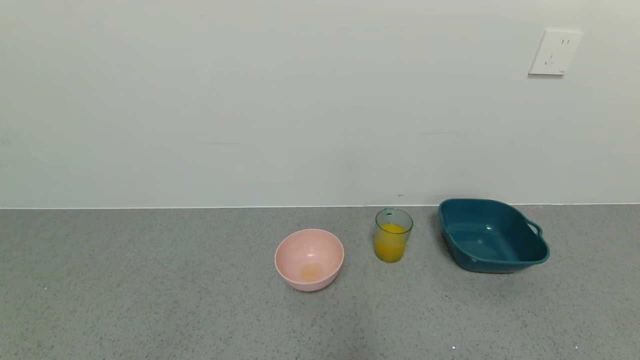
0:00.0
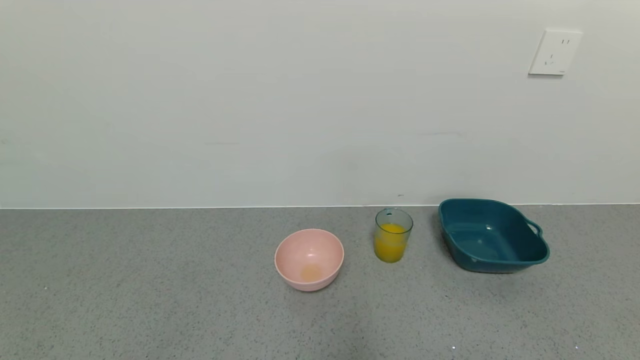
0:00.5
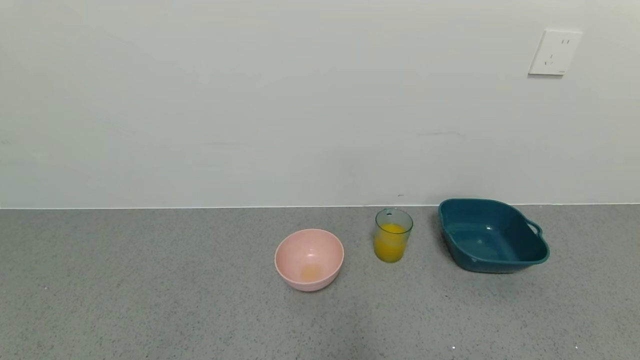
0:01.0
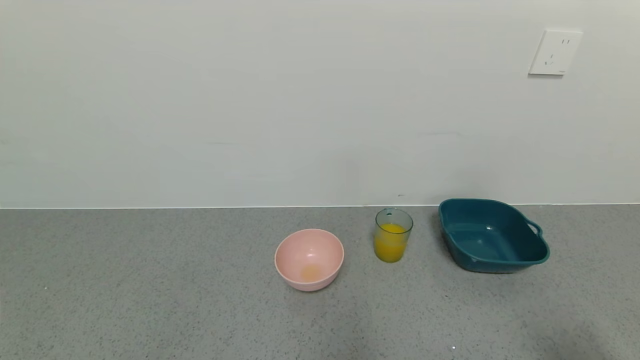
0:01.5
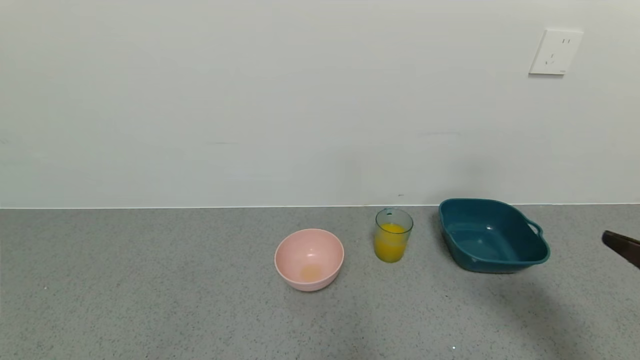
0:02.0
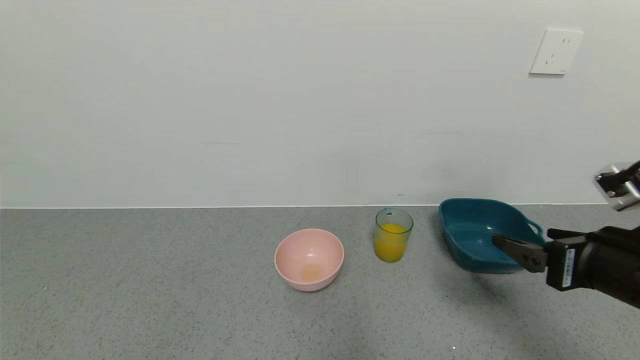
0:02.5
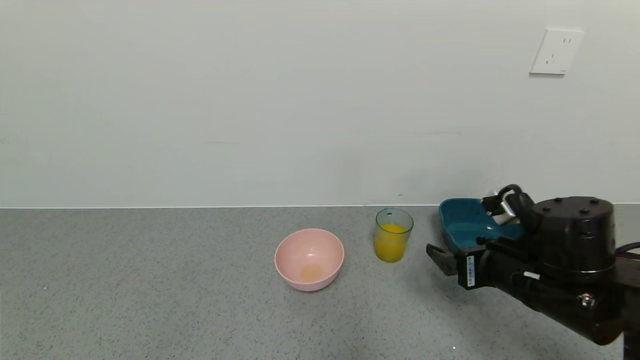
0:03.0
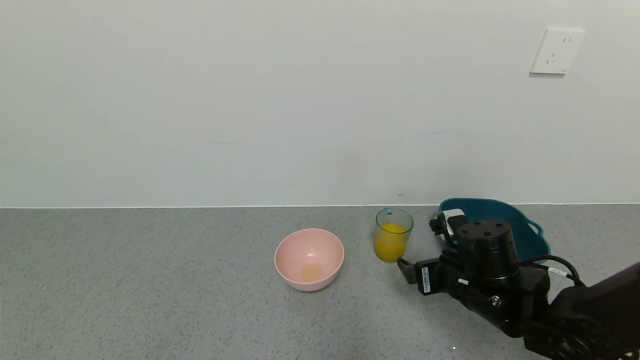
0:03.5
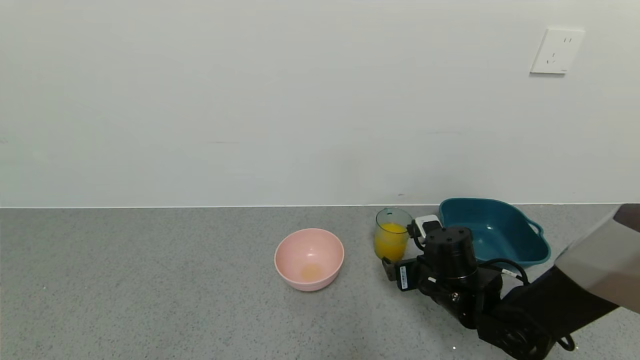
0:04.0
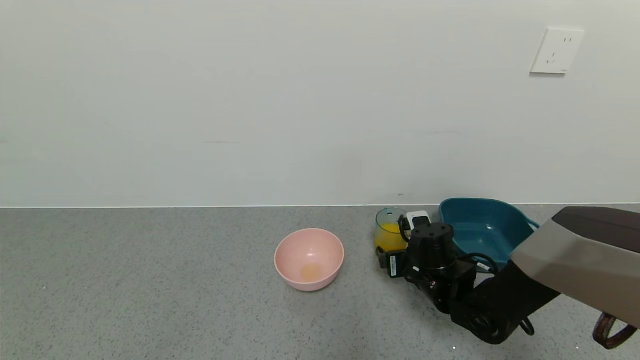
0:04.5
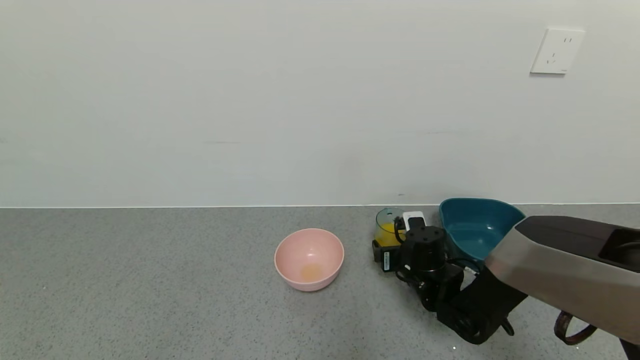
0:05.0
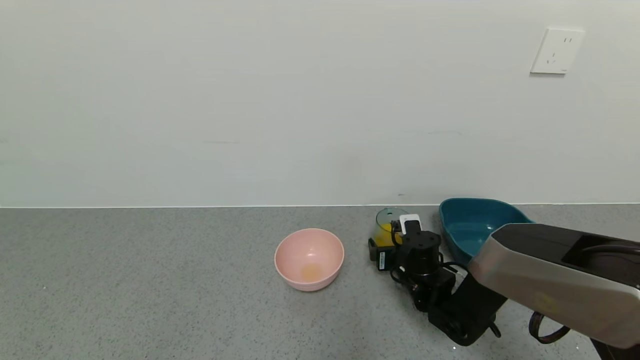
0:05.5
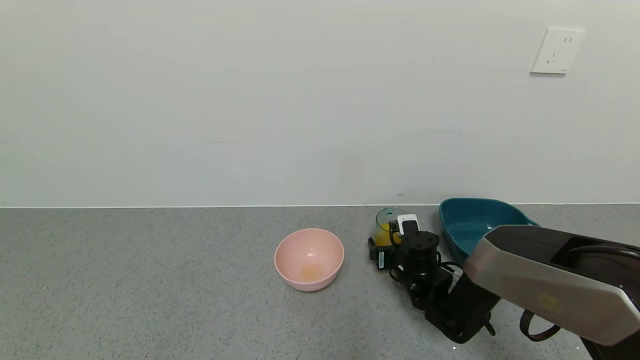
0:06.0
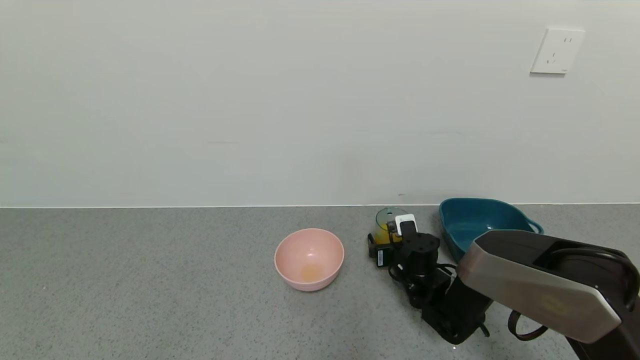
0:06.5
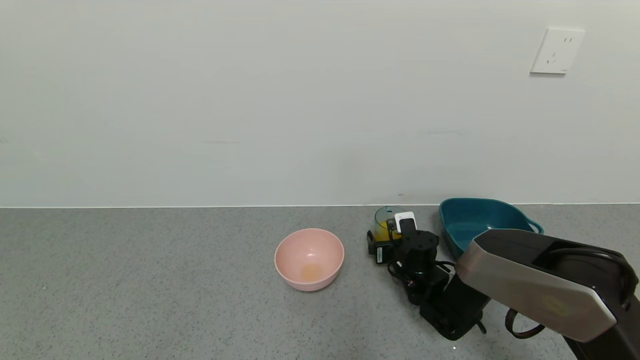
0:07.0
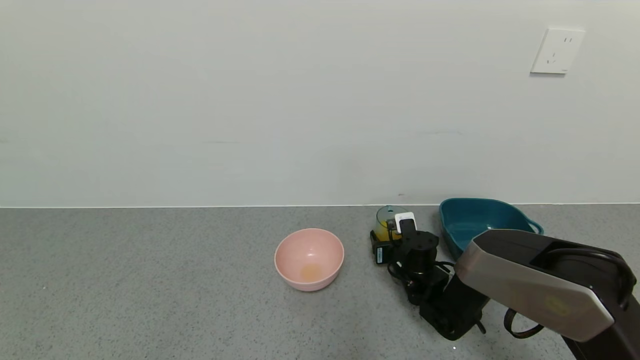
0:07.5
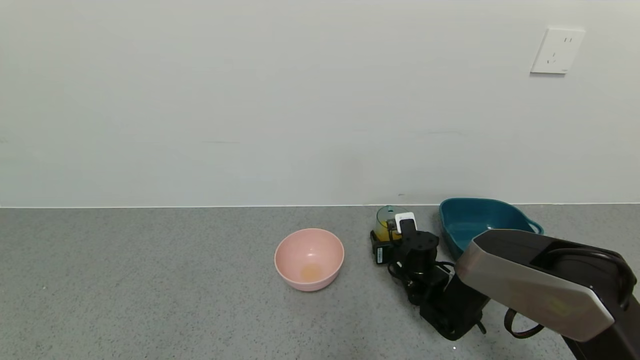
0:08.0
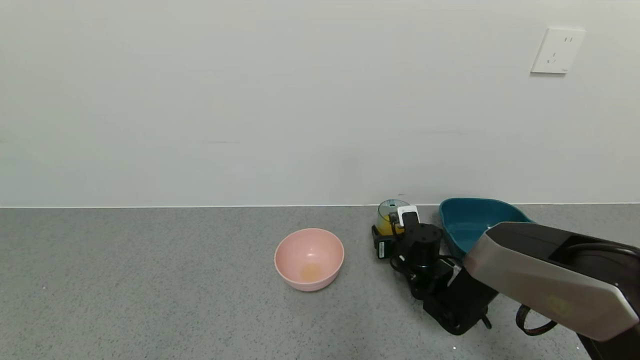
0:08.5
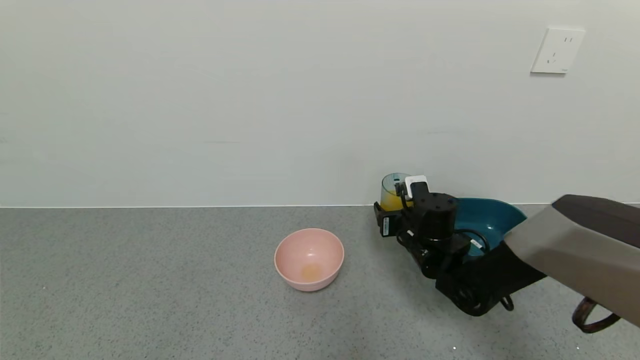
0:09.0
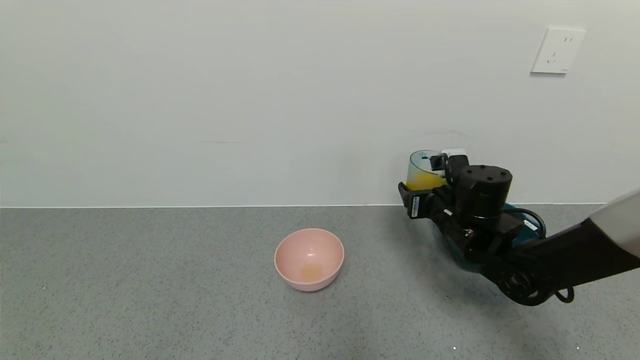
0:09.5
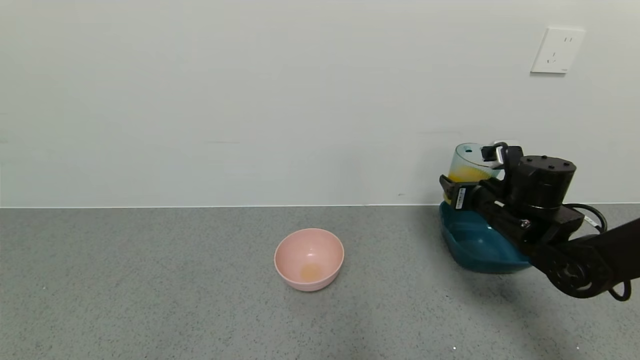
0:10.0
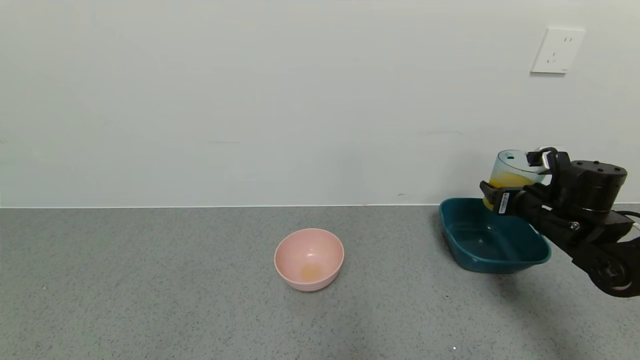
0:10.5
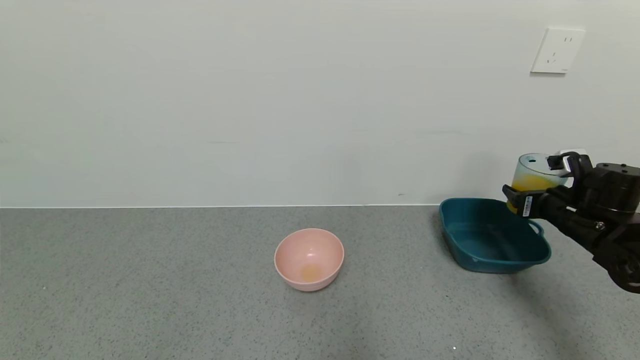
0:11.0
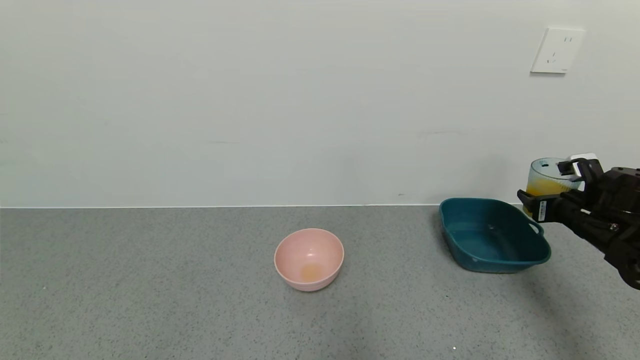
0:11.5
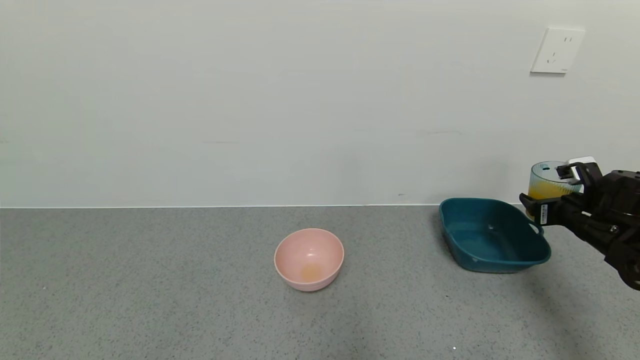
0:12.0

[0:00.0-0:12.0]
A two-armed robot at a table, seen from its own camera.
Task of the whole recording: use a gripper to pick up the cup and pour the liquid into a bowl or tray.
Step, 0:00.0 to 0:07.5: Pick up blue cup filled with orange juice with right gripper.
0:00.0 to 0:02.0: The right gripper goes some 20 cm upward and forward.
0:02.0 to 0:04.0: The right gripper moves forward, downward and to the left, approximately 30 cm.
0:04.0 to 0:06.0: The right gripper travels forward and downward by about 10 cm.
0:06.0 to 0:08.0: The right gripper closes its fingers.
0:08.0 to 0:10.0: The right gripper is displaced upward and to the right by about 20 cm.
0:10.0 to 0:12.0: The right gripper moves to the right, about 15 cm.

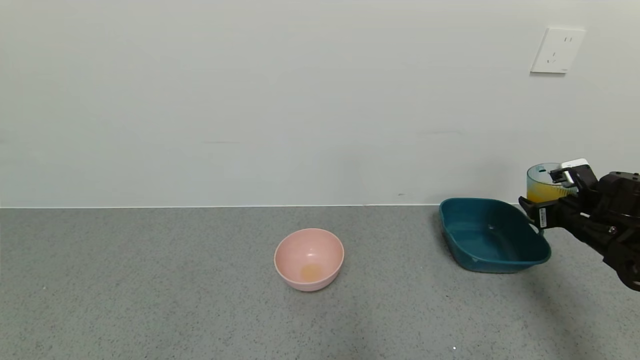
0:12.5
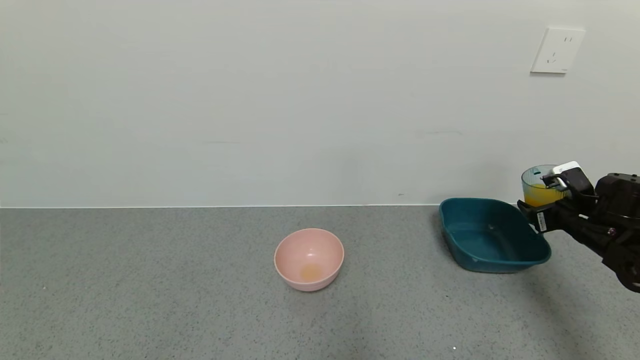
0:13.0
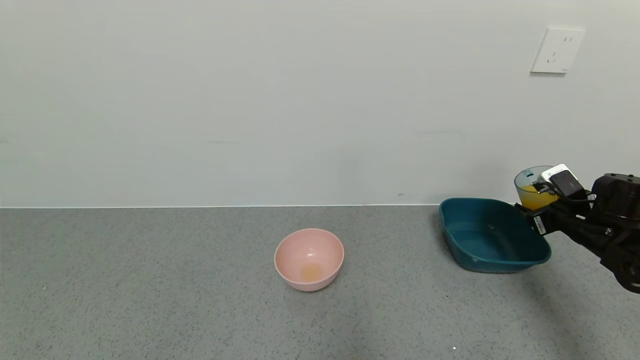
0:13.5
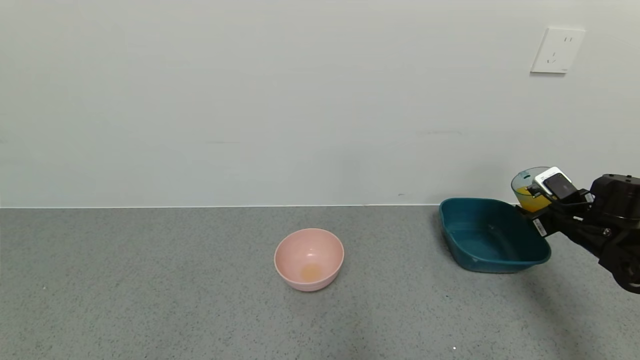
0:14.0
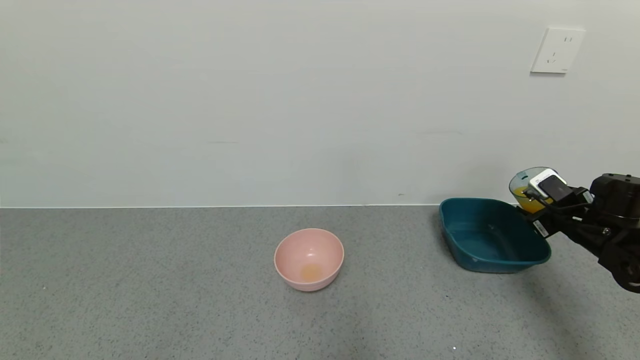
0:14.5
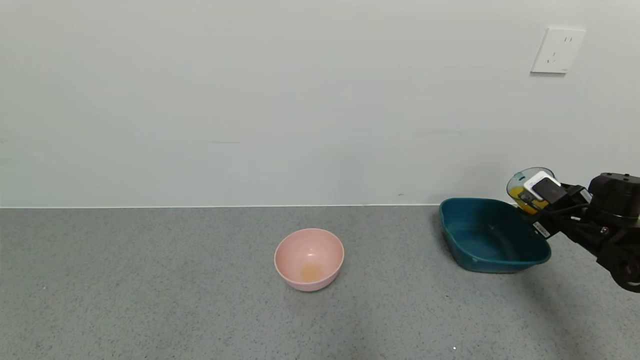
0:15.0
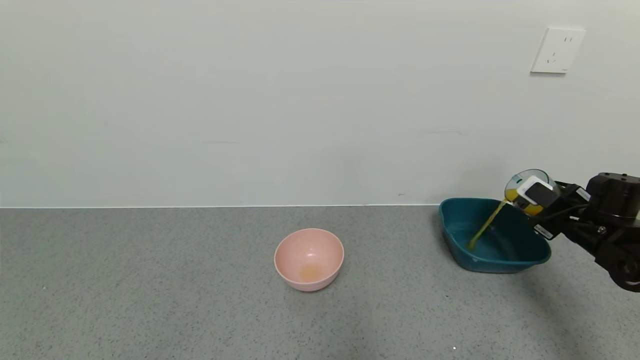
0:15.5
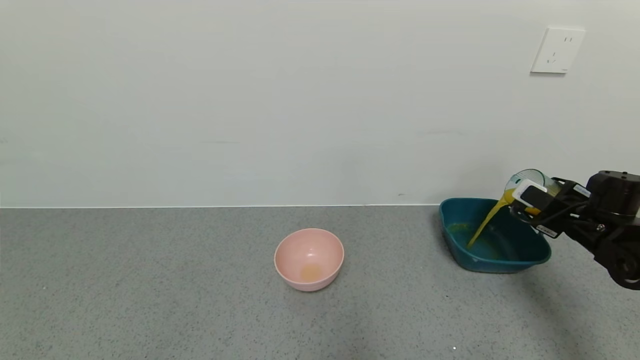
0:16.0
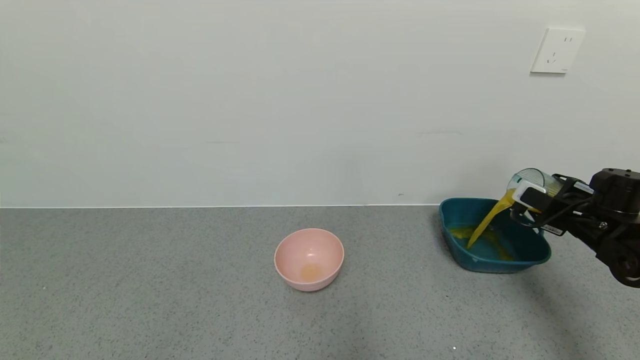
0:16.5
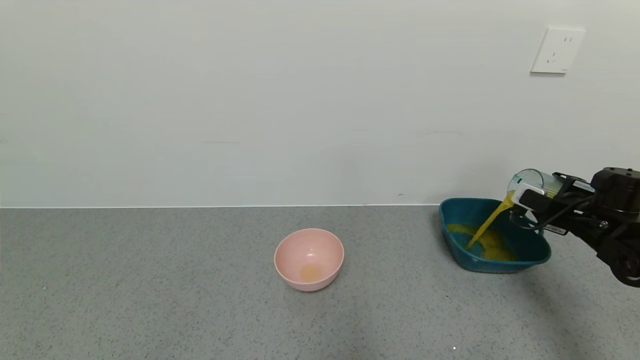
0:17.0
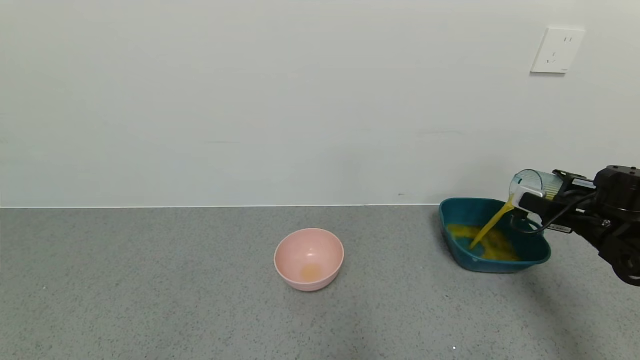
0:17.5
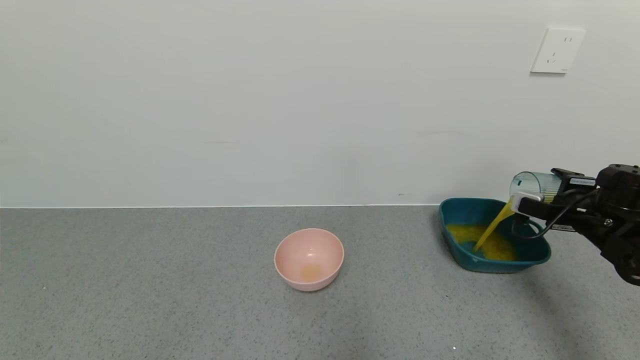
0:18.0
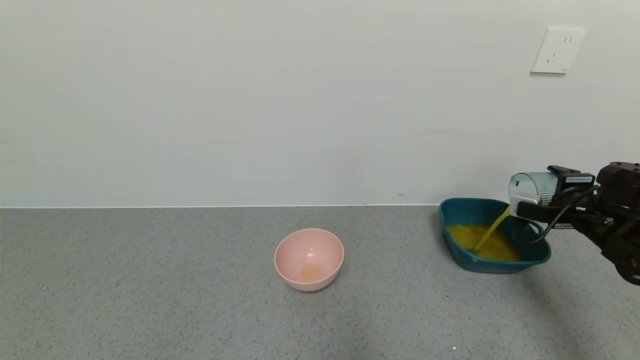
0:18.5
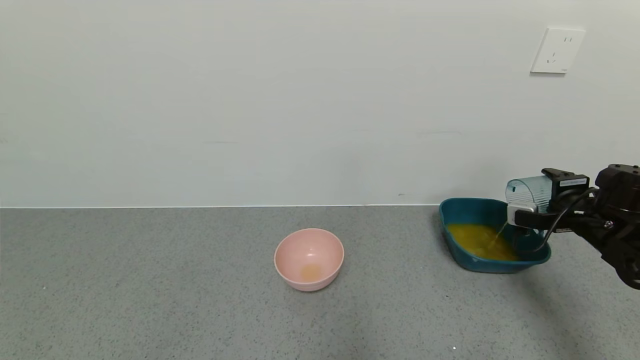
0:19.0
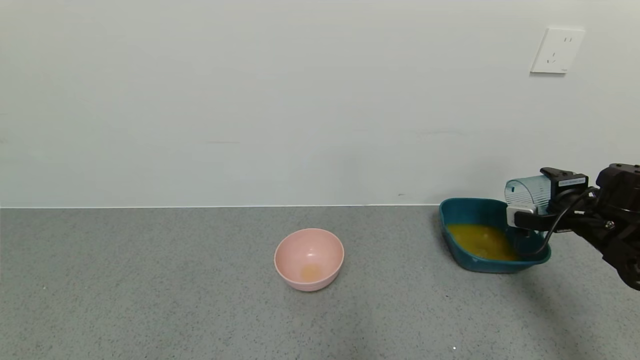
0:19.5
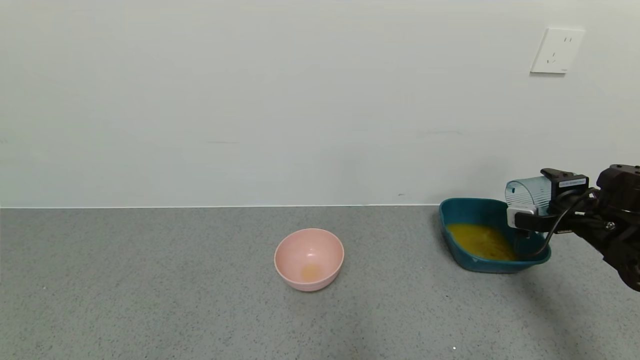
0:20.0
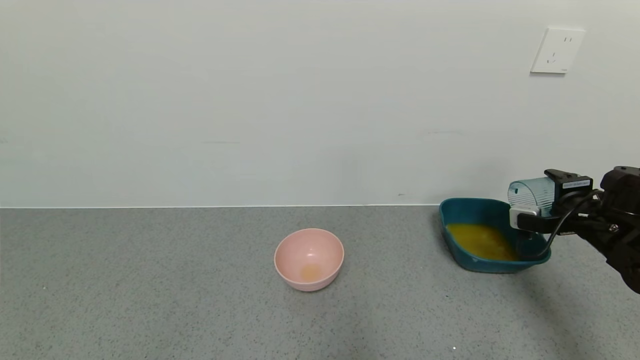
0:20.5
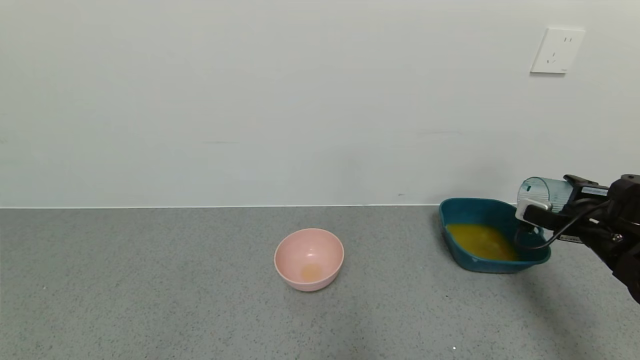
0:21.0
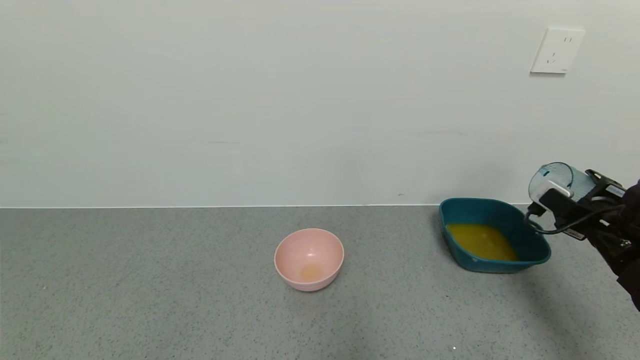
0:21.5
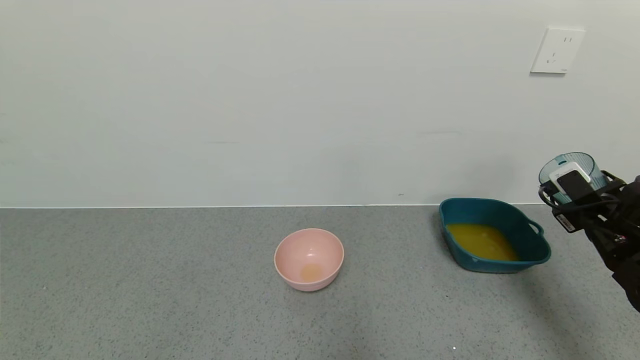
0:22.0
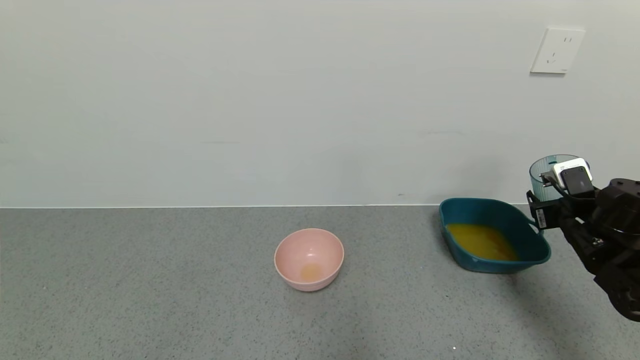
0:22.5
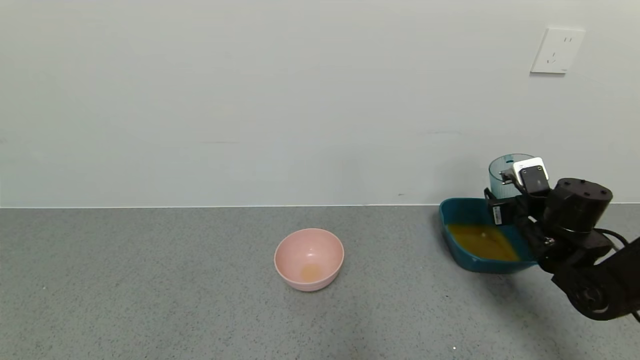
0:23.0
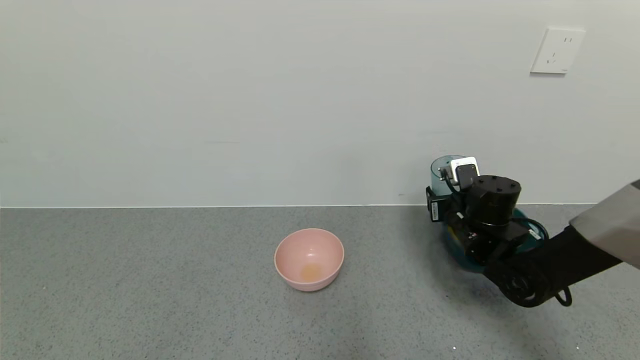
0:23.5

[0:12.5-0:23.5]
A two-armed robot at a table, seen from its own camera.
Task of the whole recording: use a gripper to pick up the cup and pour the liquid into a bowl or tray.
Step, 0:12.5 to 0:20.5: Pour the orange juice into the blue basin with right gripper.
0:18.0 to 0:20.0: The grippers make only small movements.
0:21.5 to 0:23.5: The right gripper goes some 20 cm to the left.
